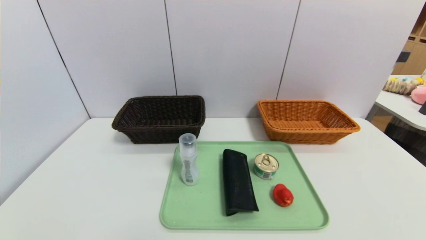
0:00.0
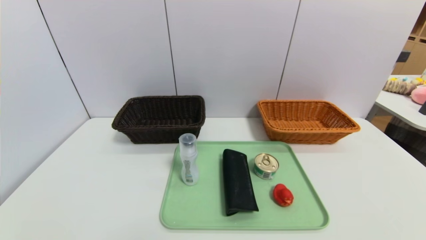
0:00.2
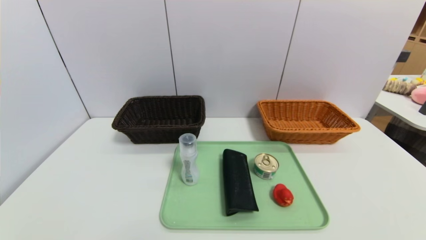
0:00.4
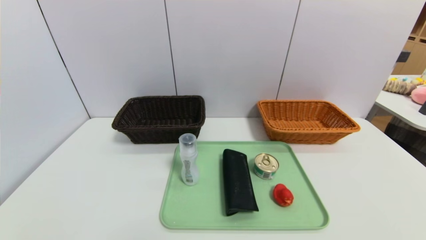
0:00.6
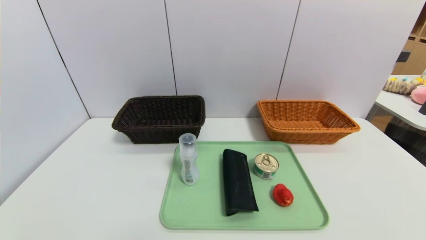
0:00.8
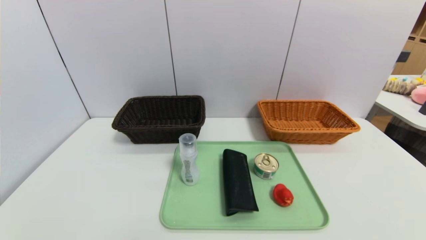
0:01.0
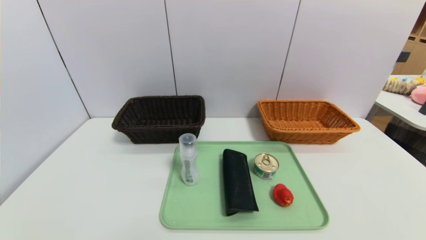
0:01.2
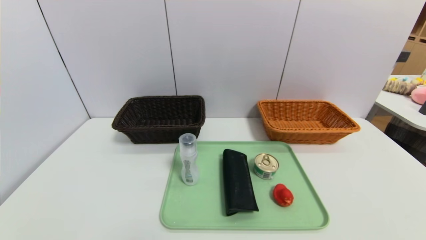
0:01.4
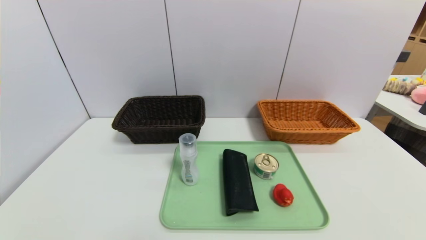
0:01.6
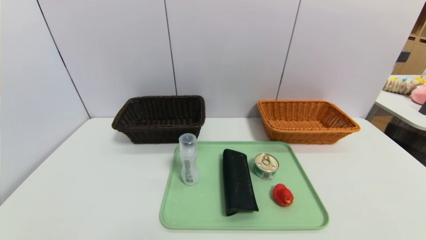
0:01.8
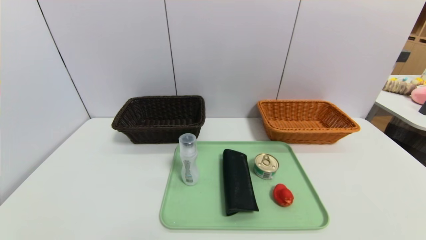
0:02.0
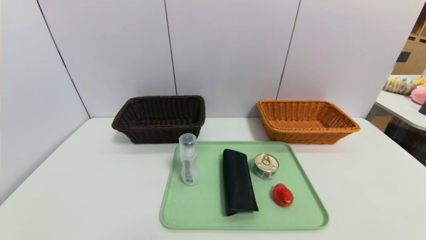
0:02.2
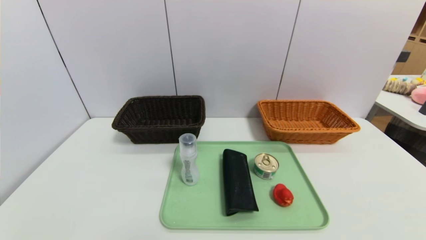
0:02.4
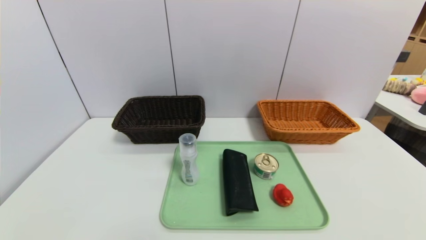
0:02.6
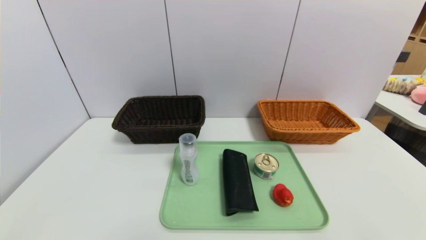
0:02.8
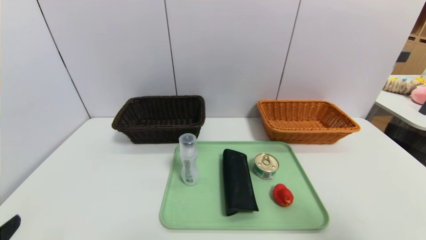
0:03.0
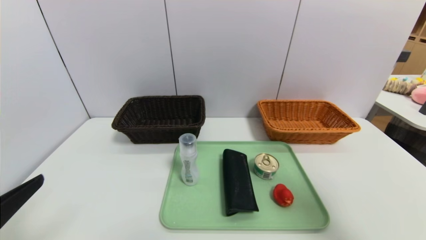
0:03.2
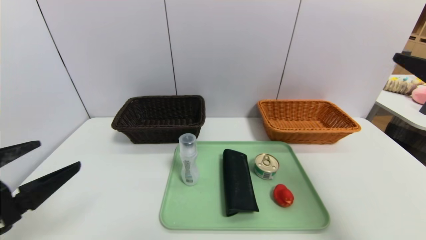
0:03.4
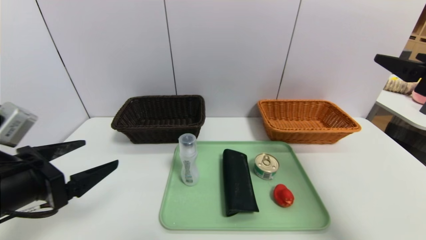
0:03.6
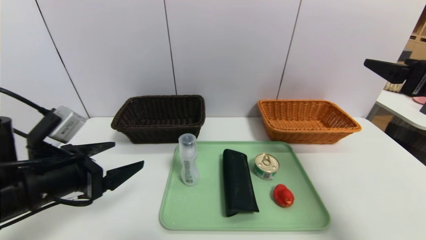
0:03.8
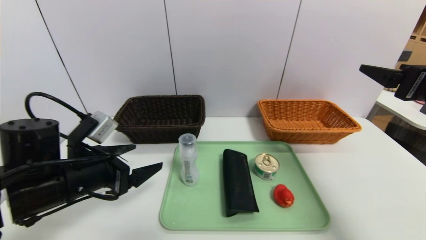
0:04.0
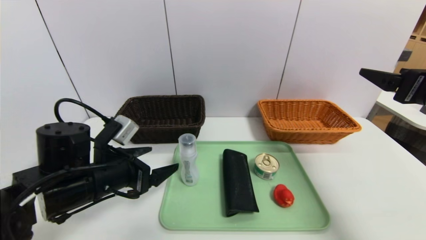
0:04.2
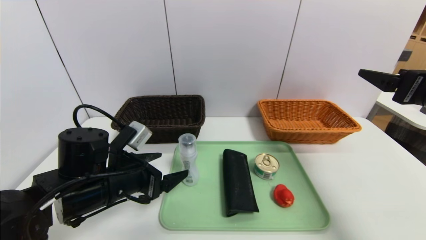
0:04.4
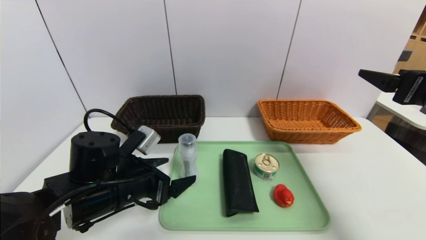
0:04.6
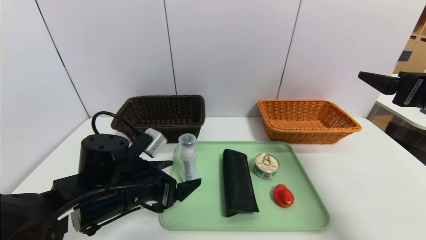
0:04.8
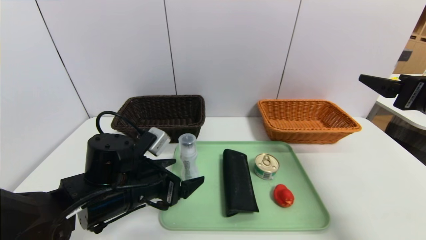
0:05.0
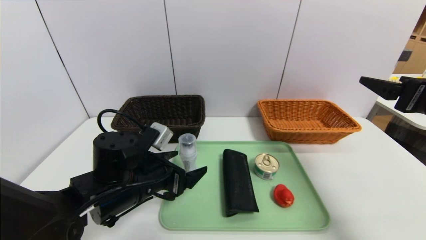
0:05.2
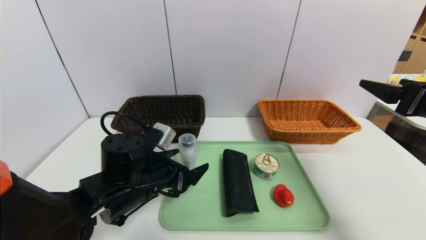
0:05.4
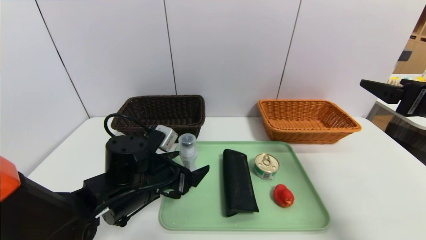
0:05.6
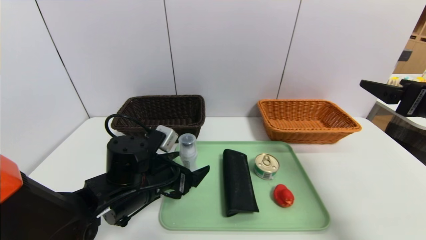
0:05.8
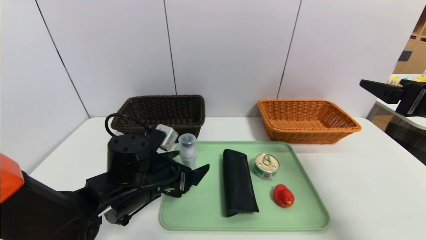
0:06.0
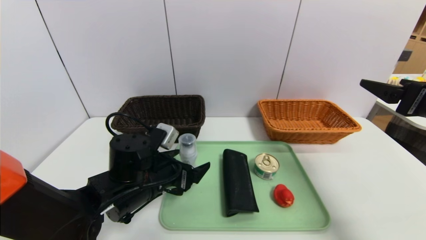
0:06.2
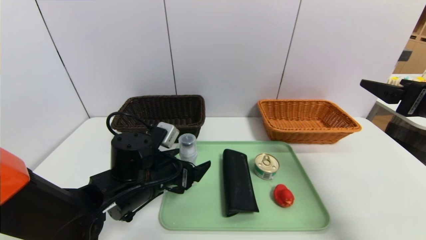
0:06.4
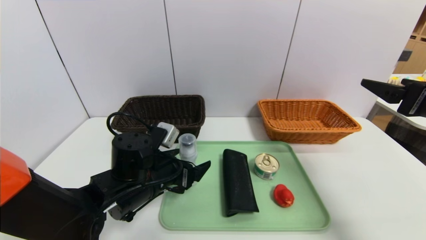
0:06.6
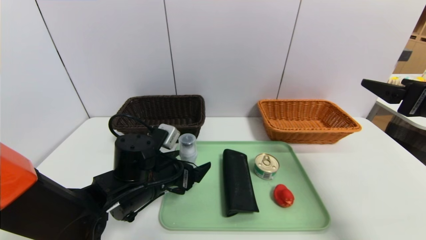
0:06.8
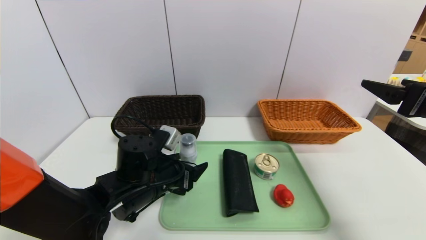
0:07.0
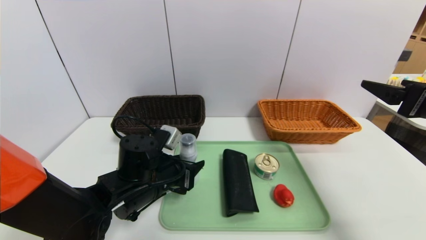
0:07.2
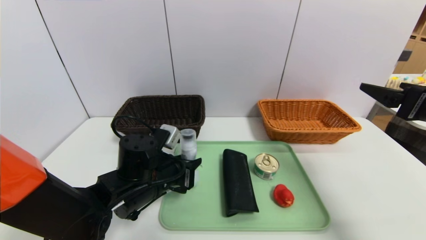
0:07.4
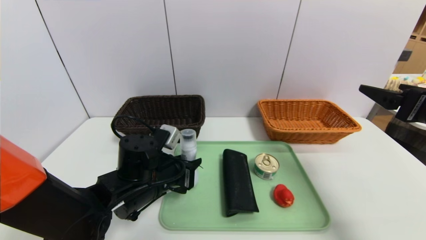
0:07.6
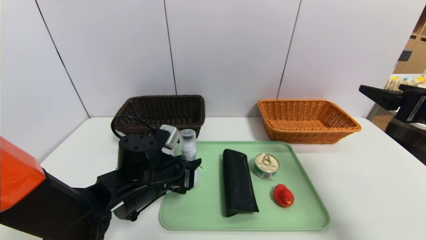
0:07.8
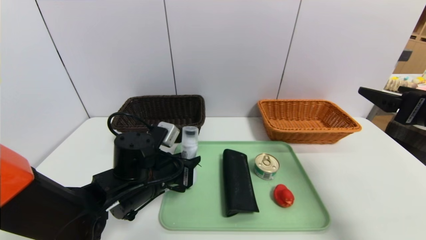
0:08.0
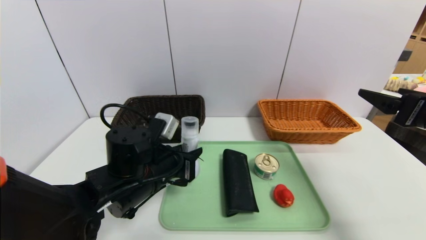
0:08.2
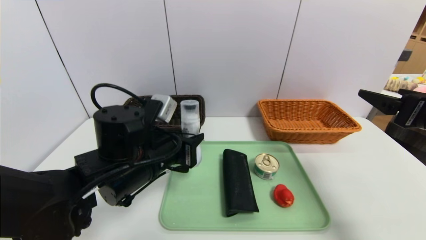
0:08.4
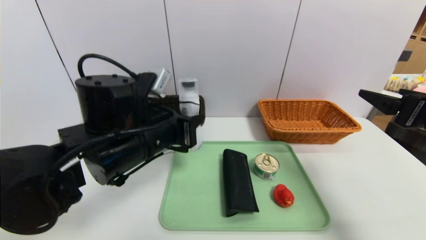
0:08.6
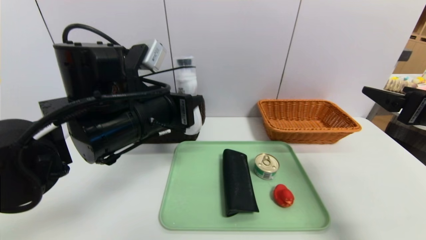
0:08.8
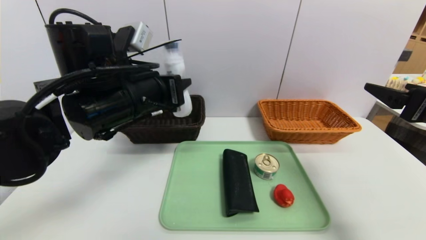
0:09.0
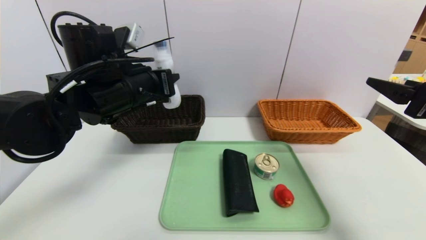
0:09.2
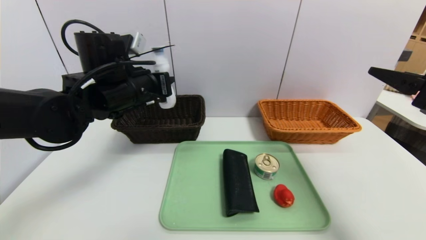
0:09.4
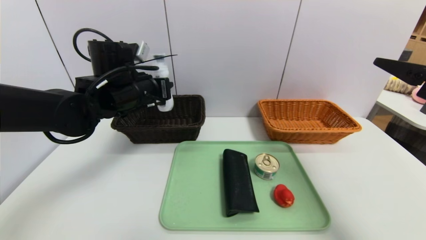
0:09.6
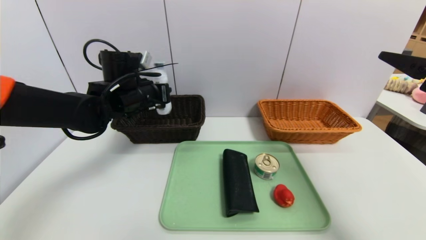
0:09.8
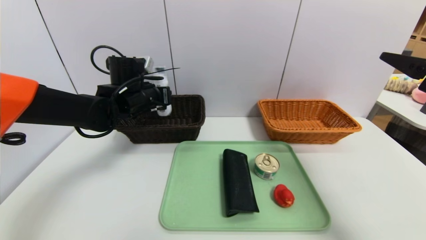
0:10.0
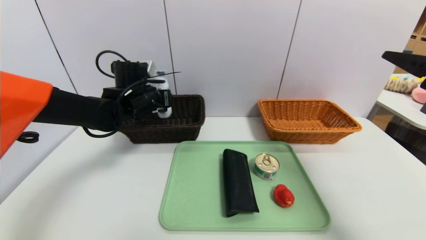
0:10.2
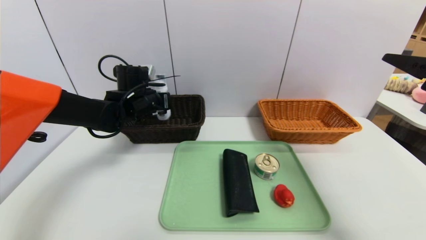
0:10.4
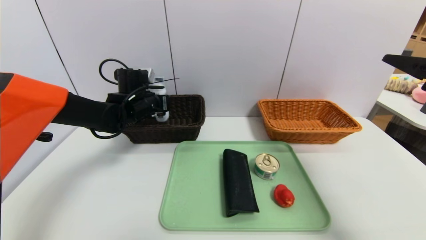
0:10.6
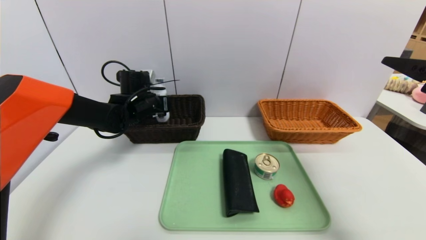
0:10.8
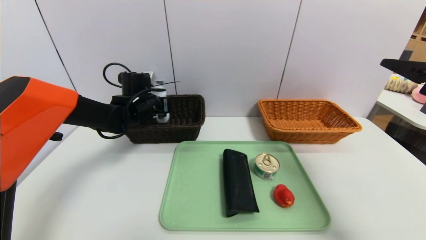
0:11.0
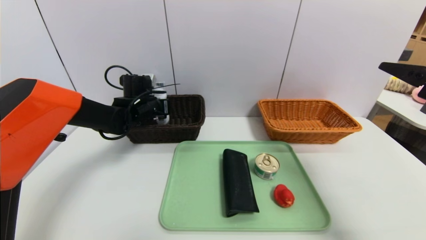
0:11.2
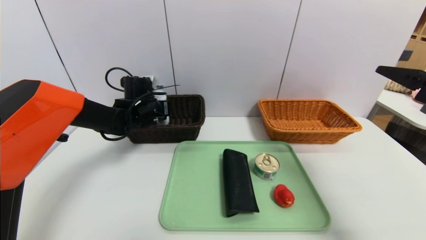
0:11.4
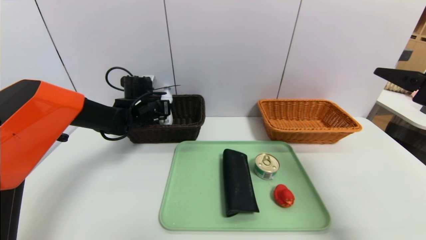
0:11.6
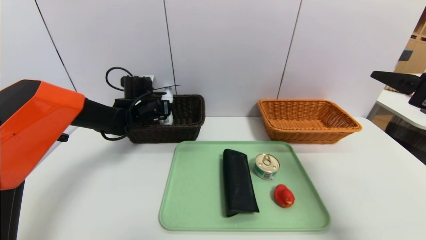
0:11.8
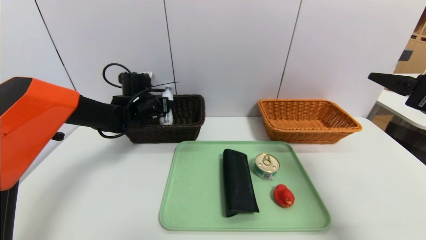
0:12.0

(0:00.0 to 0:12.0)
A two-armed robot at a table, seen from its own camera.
Task of the whole recording: place the food in the right basket with the right gripper, and place the non food items in the left basket with the left gripper.
0:00.0 - 0:01.6: Both grippers stay about where they are.
0:01.6 - 0:03.0: The right gripper goes some 20 cm upward and forward.
0:03.0 - 0:04.4: The left gripper is displaced forward and to the right by roughly 25 cm; the right gripper goes approximately 15 cm forward.
0:04.4 - 0:06.0: The left gripper changes place by some 5 cm.
0:06.0 - 0:07.6: The left gripper closes up.
0:07.6 - 0:09.0: The left gripper goes roughly 15 cm upward.
0:09.0 - 0:10.4: The left gripper goes about 20 cm forward and downward.
0:10.4 - 0:12.0: The left gripper opens up.

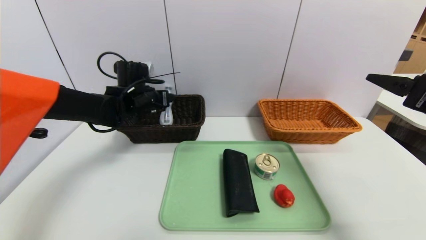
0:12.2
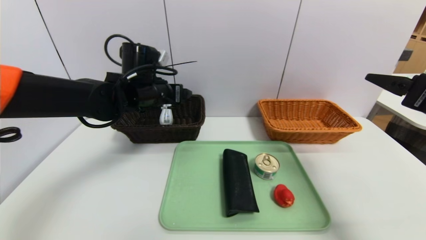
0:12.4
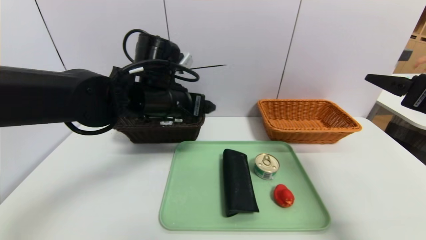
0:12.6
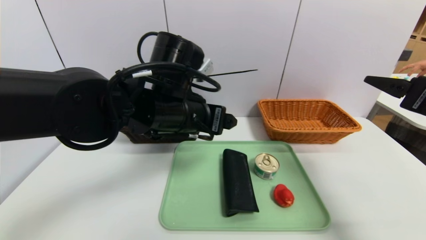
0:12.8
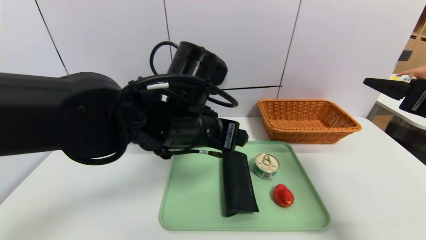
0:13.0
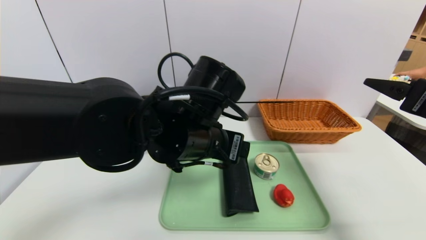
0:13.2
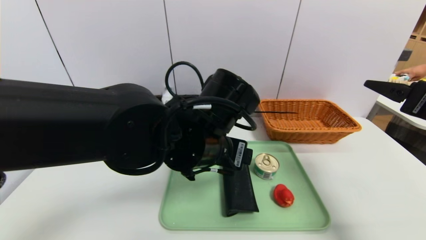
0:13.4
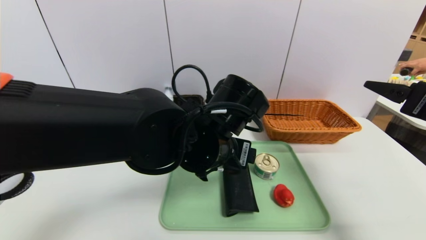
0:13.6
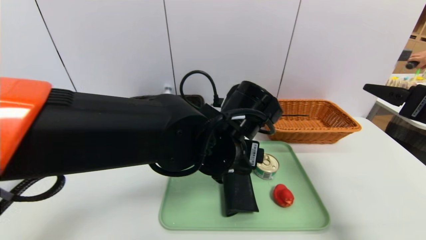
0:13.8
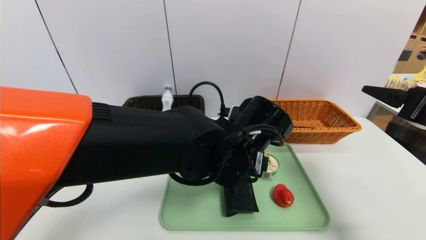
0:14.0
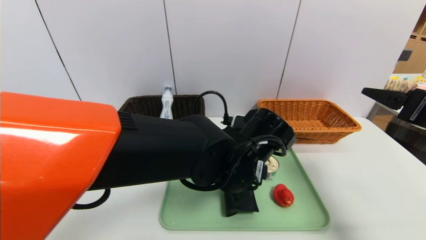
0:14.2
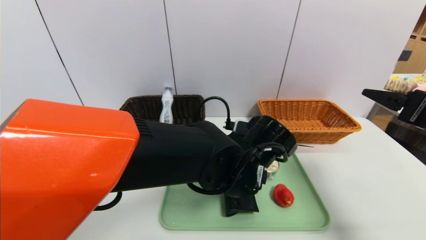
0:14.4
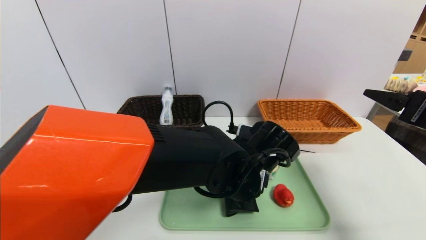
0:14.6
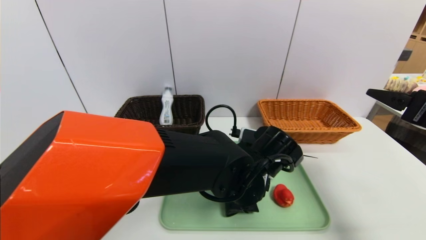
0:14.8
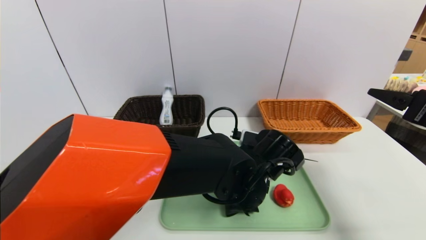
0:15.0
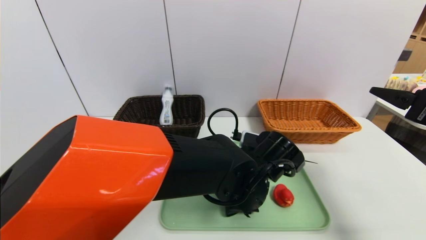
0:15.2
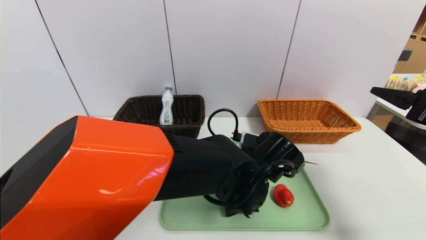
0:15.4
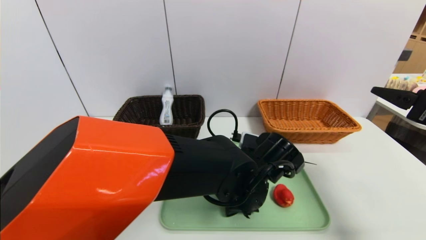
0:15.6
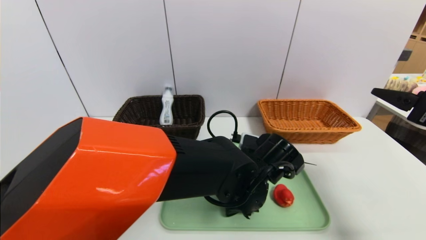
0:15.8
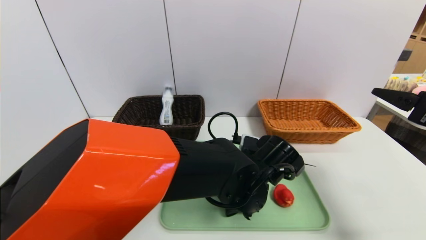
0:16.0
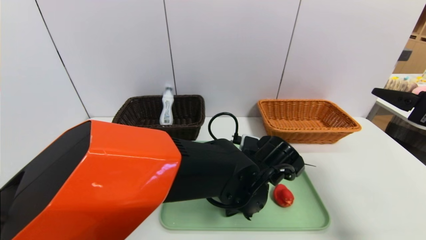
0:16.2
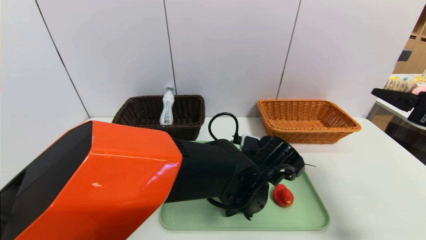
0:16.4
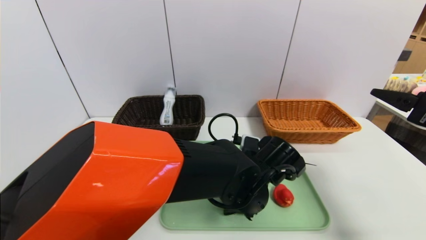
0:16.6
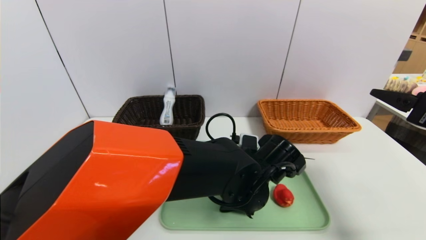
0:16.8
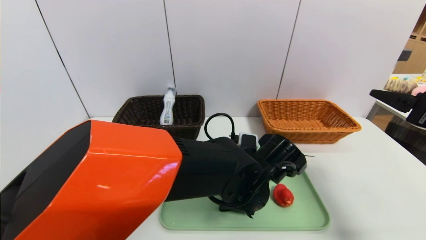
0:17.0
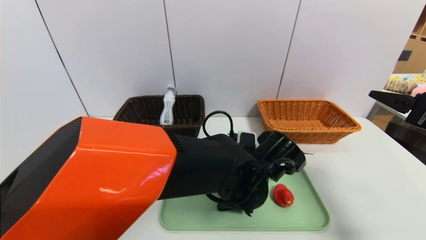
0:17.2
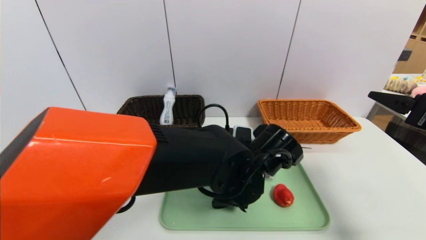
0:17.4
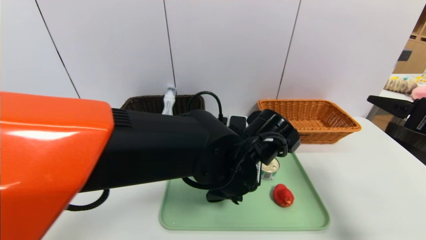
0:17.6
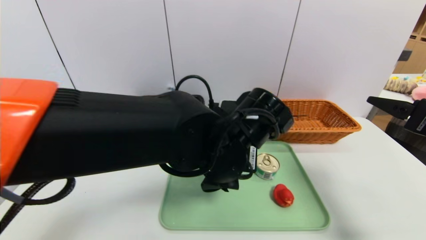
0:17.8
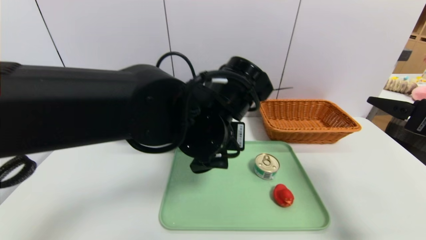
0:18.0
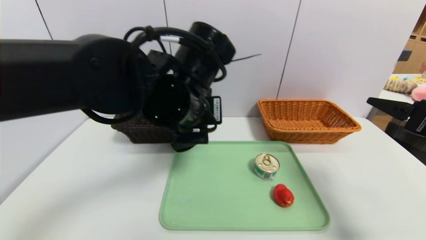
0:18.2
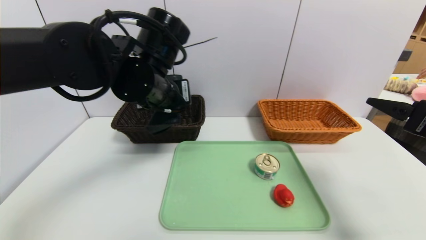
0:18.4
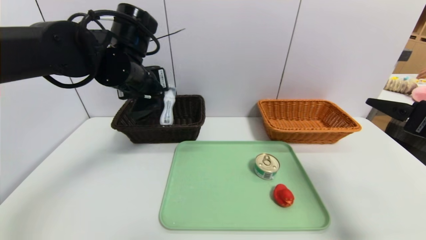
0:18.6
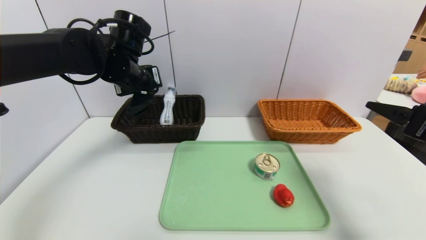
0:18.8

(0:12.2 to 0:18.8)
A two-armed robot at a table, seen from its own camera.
Task of the whole recording: place the food in the right basket with the right gripper, and place the non food items in the left basket with the left gripper.
0:12.2 - 0:13.8: The left gripper goes roughly 25 cm to the right and backward.
0:13.8 - 0:15.4: The left gripper heads downward, covering approximately 5 cm.
0:15.4 - 0:17.2: The left gripper closes up.
0:17.2 - 0:18.8: The left gripper moves to the left, upward and forward, roughly 30 cm.
